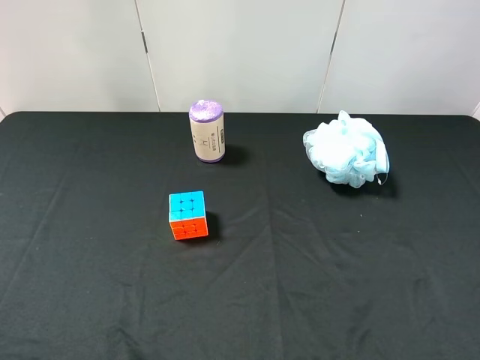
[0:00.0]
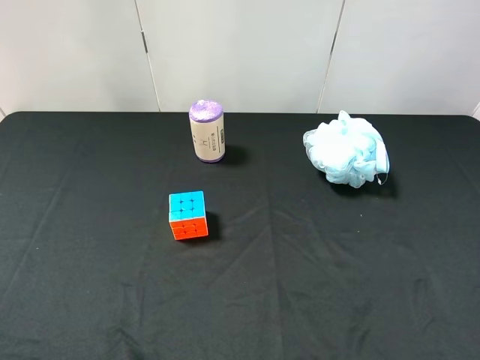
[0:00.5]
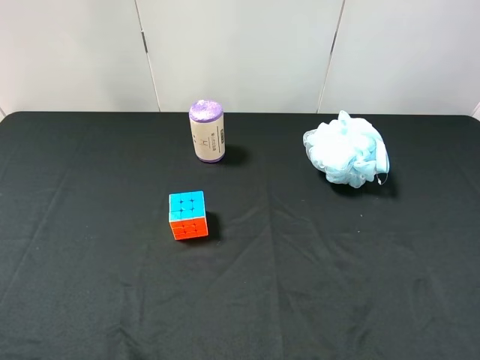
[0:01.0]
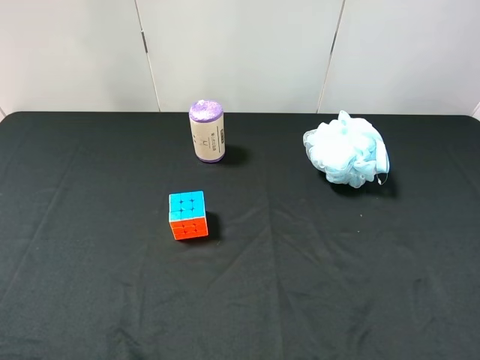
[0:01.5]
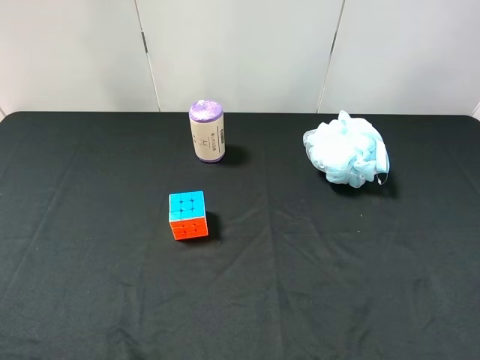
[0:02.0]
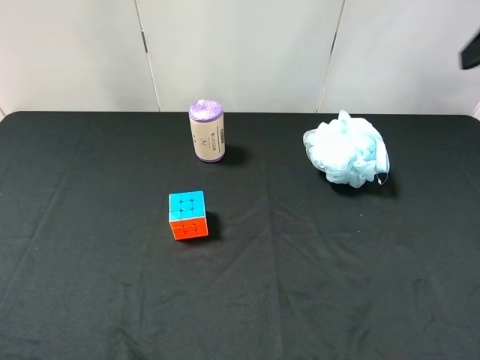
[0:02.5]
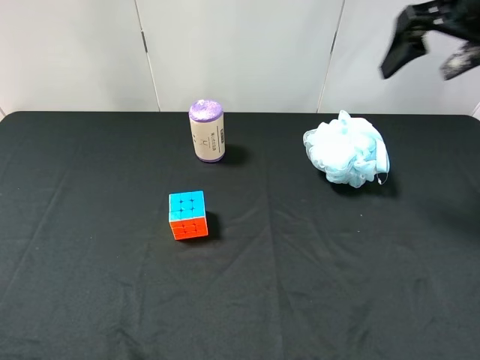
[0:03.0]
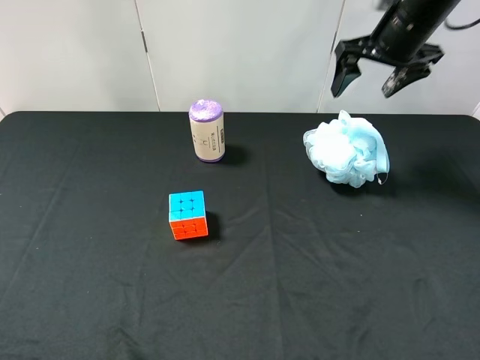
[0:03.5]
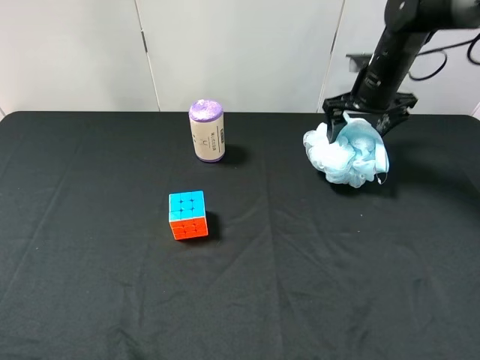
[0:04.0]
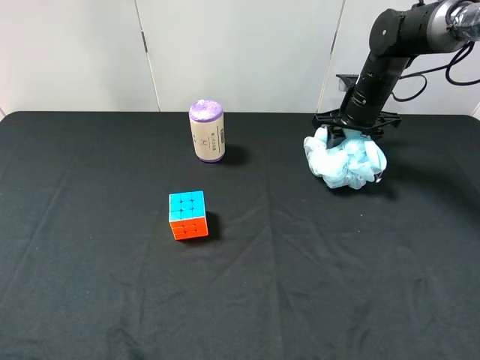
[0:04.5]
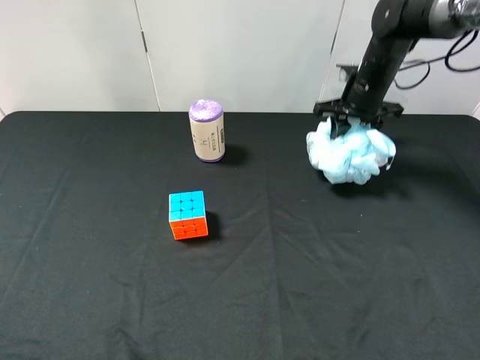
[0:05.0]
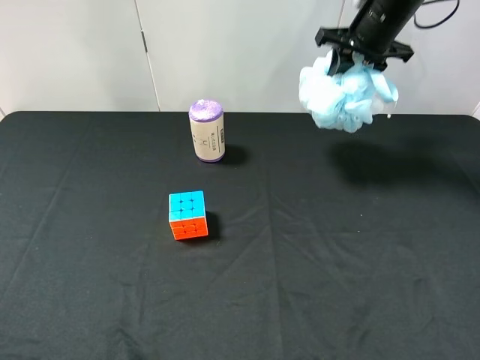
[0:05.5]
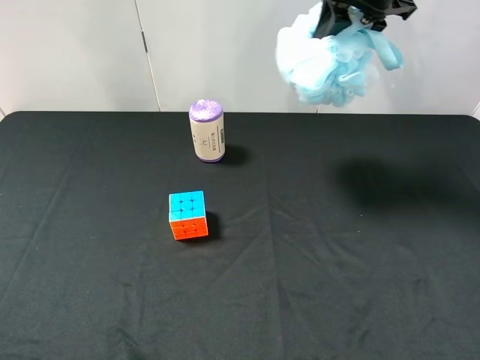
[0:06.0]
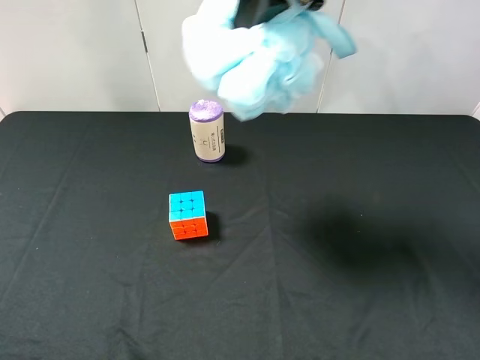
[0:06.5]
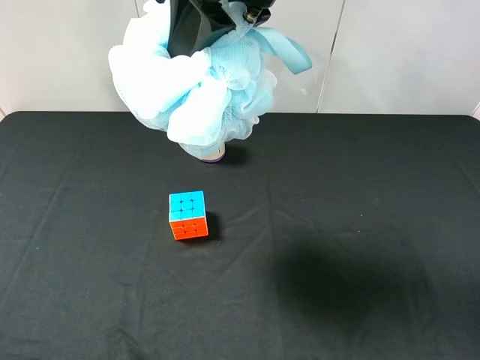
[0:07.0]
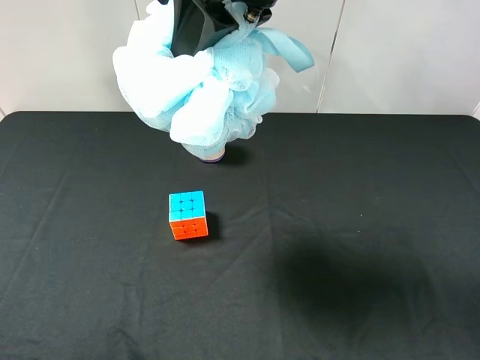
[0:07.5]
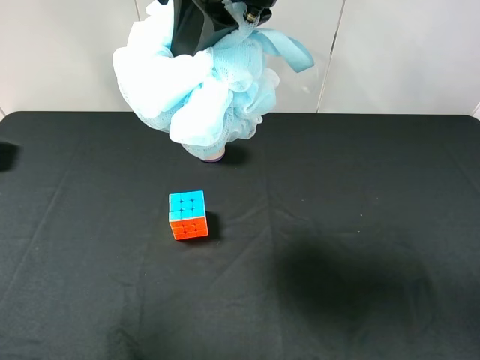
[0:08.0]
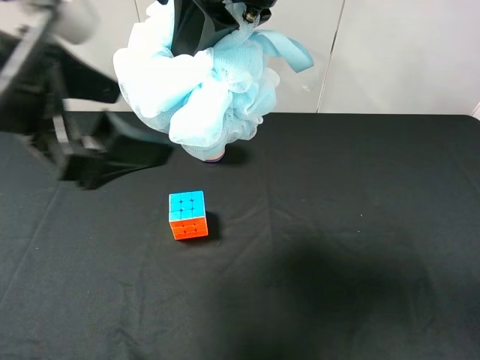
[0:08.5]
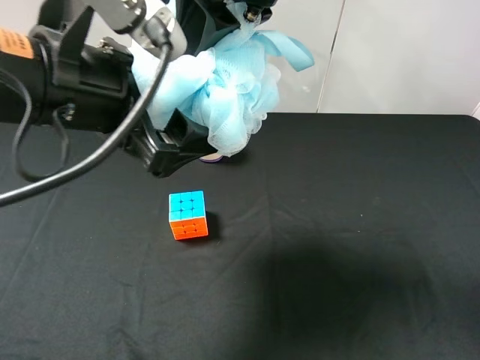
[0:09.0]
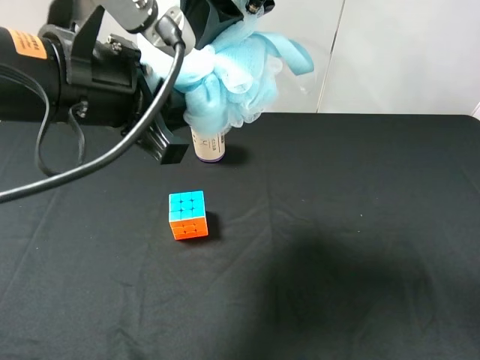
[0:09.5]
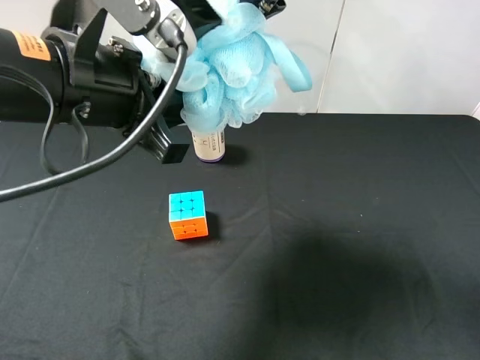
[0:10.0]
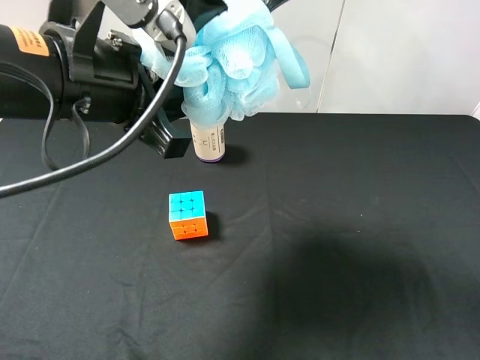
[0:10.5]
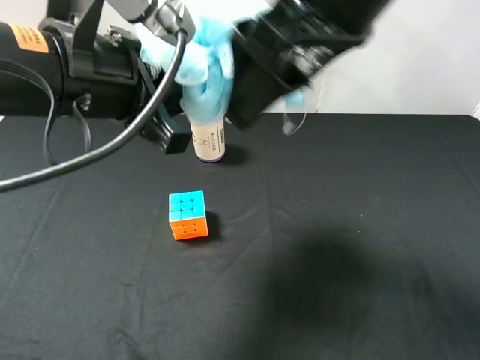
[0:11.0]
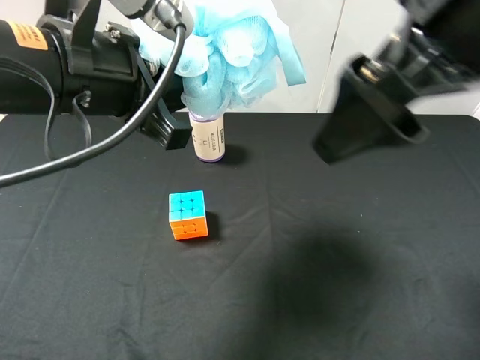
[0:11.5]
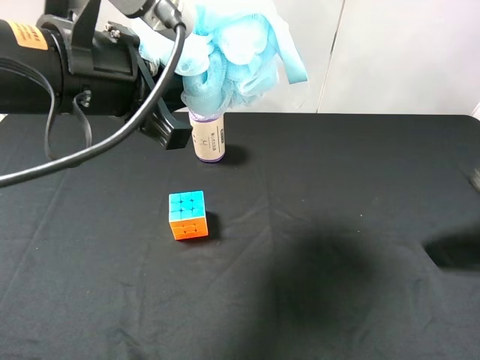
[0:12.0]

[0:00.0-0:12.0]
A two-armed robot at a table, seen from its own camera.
Task of the whole recording: use the right gripper to pick up the item and transfer it from the right gripper to the left gripper.
Step, 0:00.0 to 0:04.5: Use the right gripper to grab the shower sphere on the right side of the table.
Step, 0:05.0 to 0:11.0: Pass the shower sphere to the left gripper.
0:02.0 to 0:04.0: The right gripper goes roughly 40 cm forward.
0:04.0 to 0:06.0: The right gripper shifts about 15 cm upward, and closes its fingers.
0:06.0 to 0:08.0: The left gripper shifts about 10 cm forward and upward. The right gripper moves backward and to the left, approximately 25 cm.
0:08.0 to 0:10.0: The right gripper opens its fingers; the left gripper shifts about 15 cm to the right and forward, and closes its fingers.
0:10.0 to 0:12.0: The right gripper moves to the right and backward, some 25 cm, and opens.

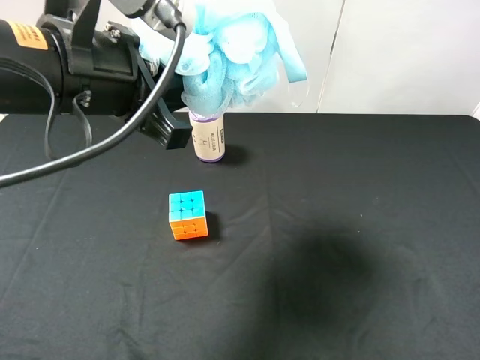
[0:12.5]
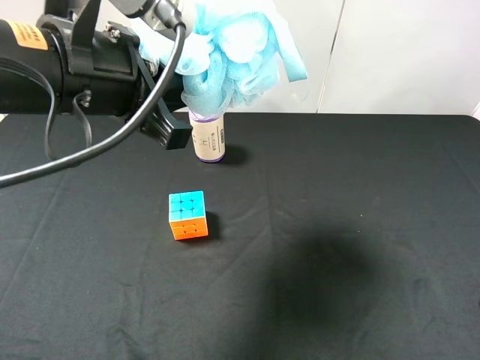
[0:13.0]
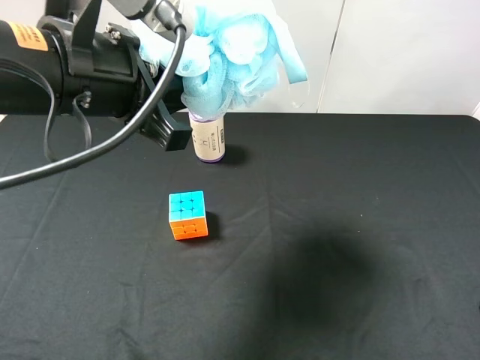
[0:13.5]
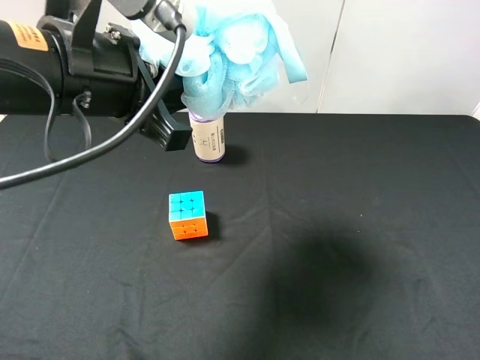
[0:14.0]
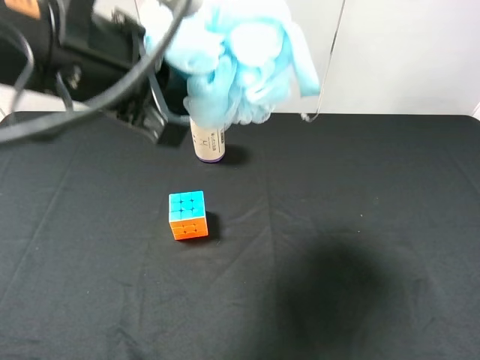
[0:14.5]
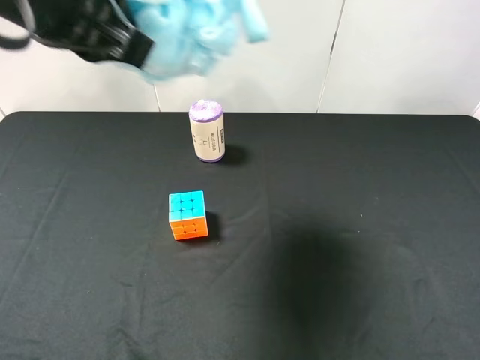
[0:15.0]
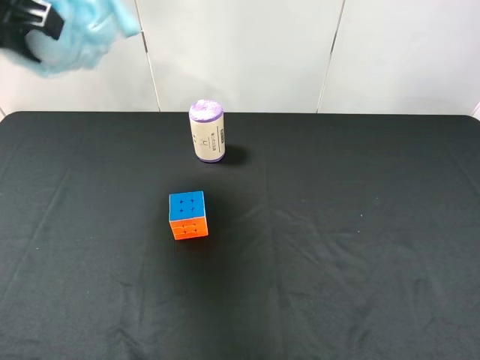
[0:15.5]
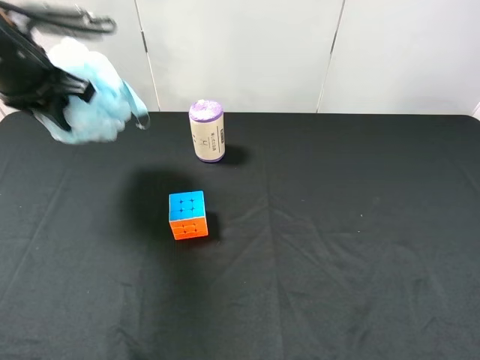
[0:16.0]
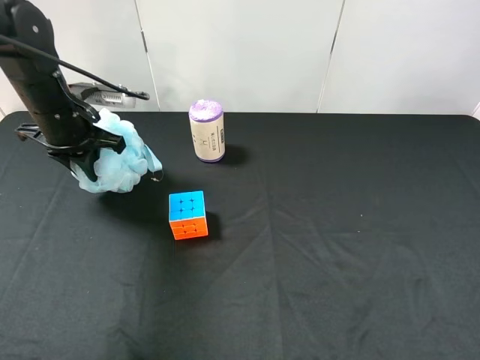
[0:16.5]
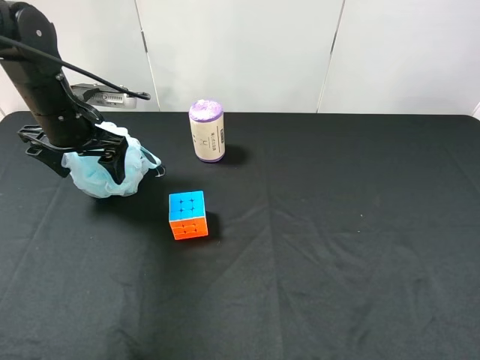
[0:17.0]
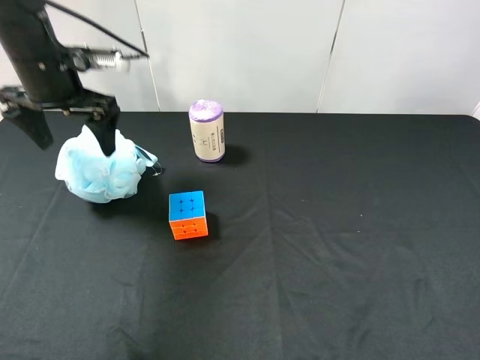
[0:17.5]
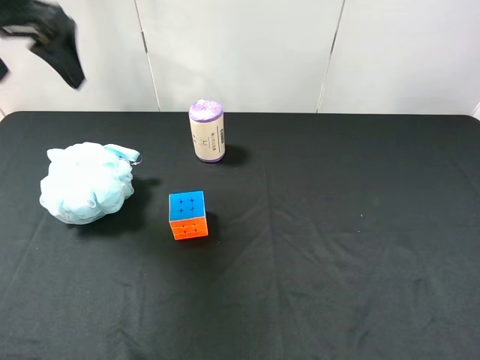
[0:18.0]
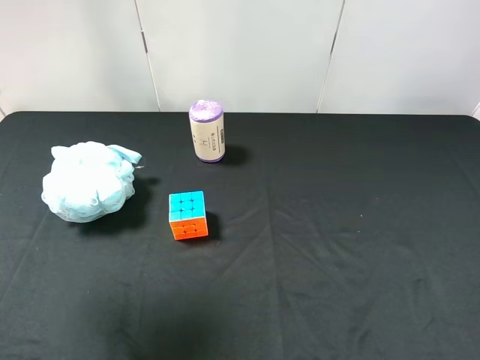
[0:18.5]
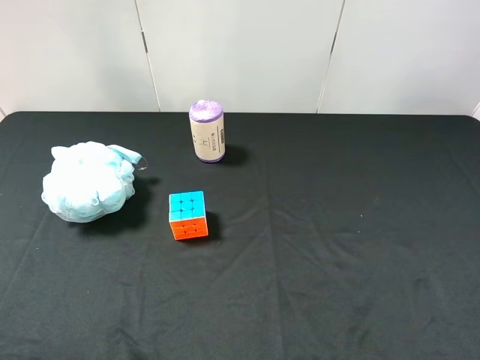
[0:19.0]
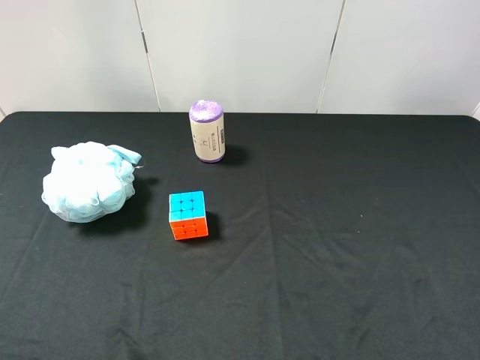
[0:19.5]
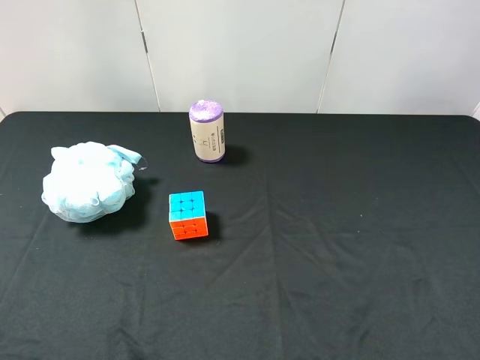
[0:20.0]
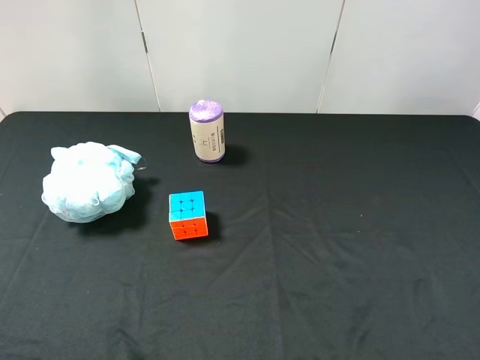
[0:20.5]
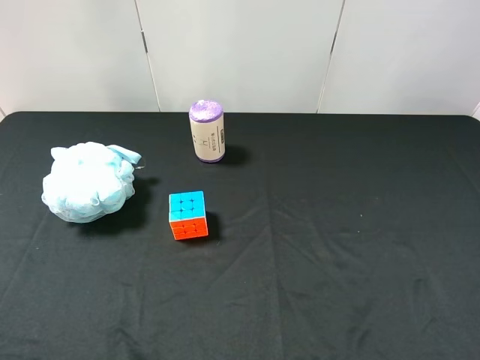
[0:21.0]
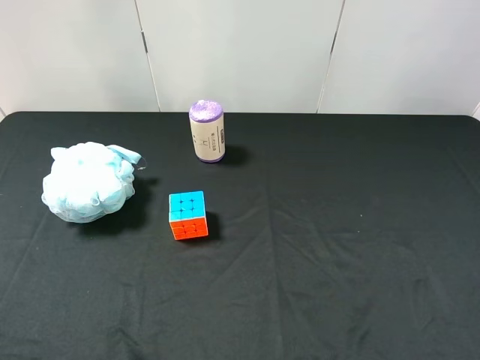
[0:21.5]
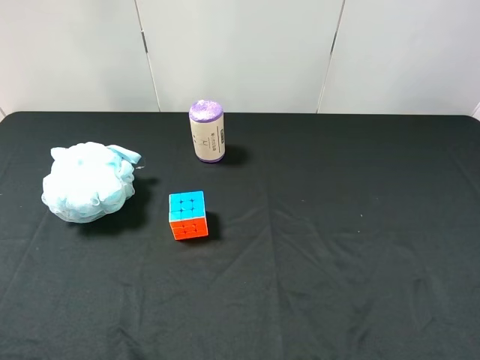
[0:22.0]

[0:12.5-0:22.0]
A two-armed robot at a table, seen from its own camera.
Task of the whole recording: use the right gripper to pick up the item and transfer it from the right gripper to the left gripper.
Step, 0:12.5 to 0:17.0: The left gripper places shower sphere on the left side of the table.
0:14.5 to 0:16.5: The left gripper goes some 25 cm forward, downward and to the left.
0:16.5 to 0:18.0: The left gripper is displaced upward by about 15 cm, and opens its fingers.
0:18.0 to 0:20.0: The left gripper goes about 35 cm backward.

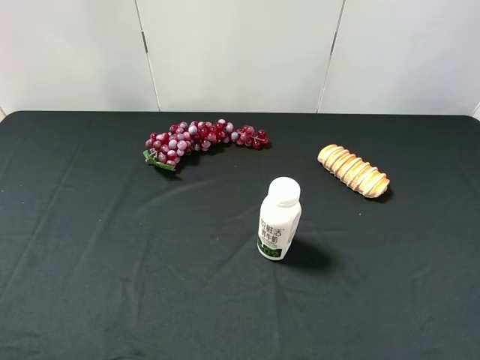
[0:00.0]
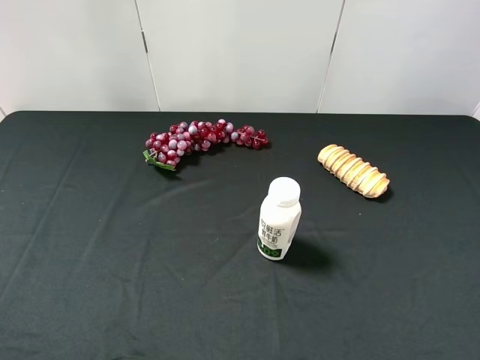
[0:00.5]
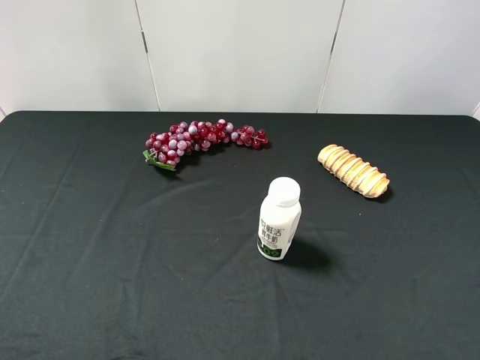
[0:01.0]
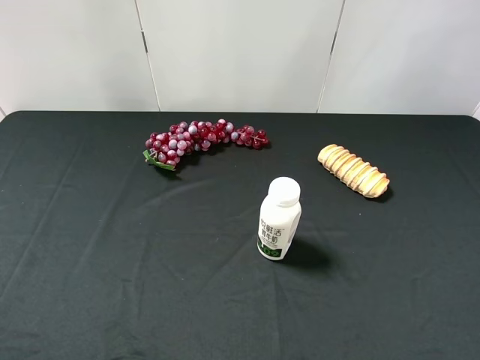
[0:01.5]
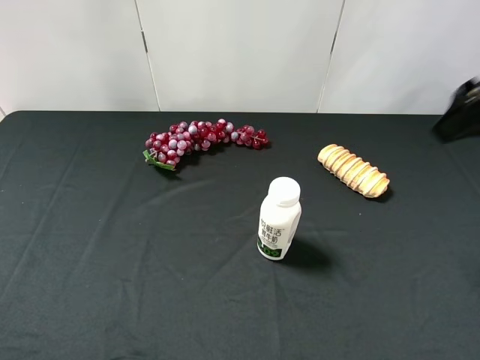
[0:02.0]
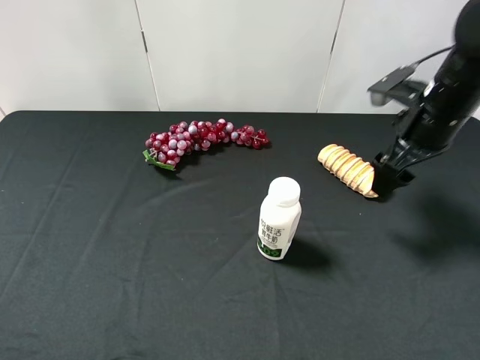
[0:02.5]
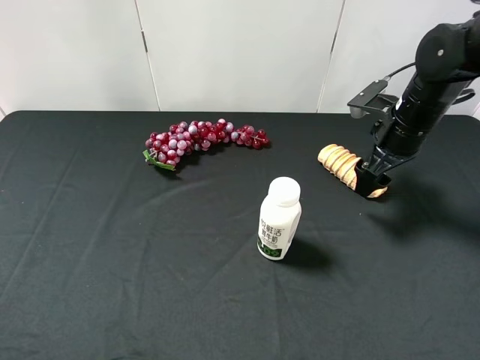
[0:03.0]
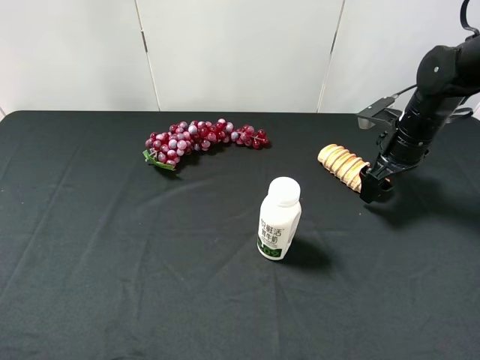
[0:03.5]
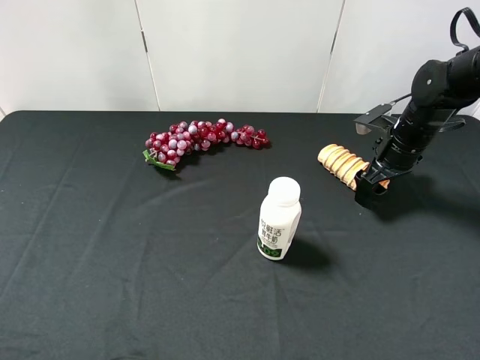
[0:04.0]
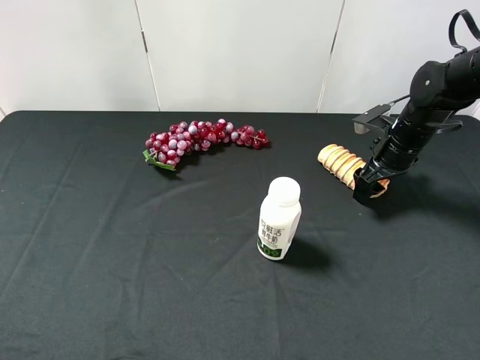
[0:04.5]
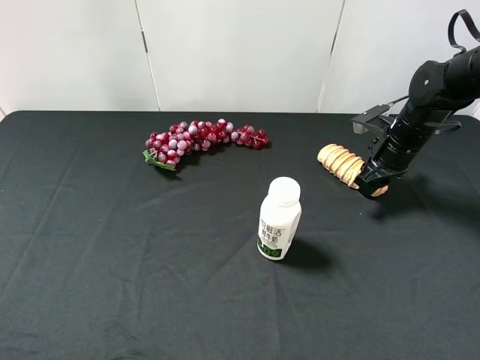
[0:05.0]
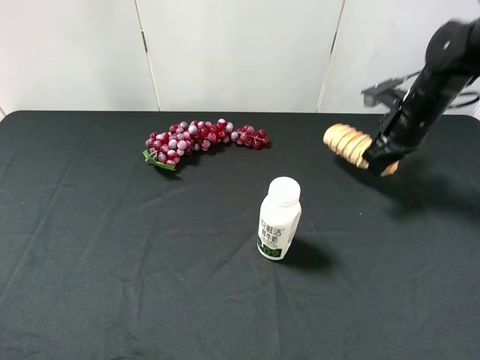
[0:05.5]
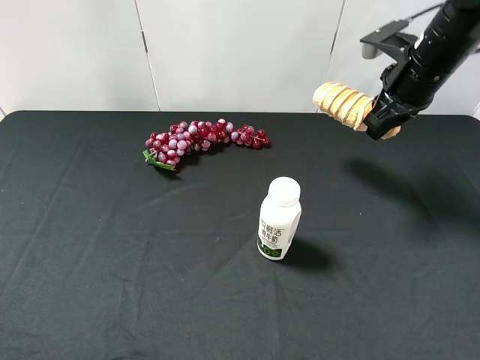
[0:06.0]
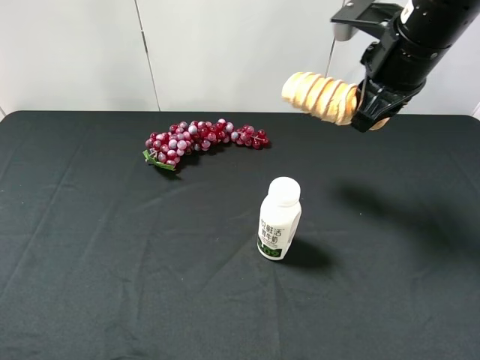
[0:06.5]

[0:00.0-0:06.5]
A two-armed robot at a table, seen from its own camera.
Task of the whole recording: use the right gripper to pick up the item and transfer it from the right gripper to the left gripper.
Step, 0:00.0 to 0:05.0: Use the right gripper to grab the bread on the right side of the table.
0:00.0 to 0:02.0: The right gripper goes about 25 cm forward.
0:02.0 to 0:04.5: The right gripper shifts roughly 25 cm downward and forward.
0:04.5 to 0:06.5: The right gripper moves upward, to the left and backward, about 20 cm, and closes its fingers.
